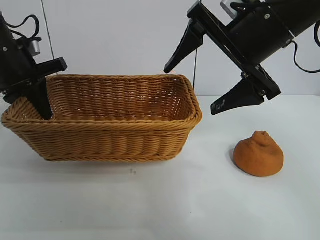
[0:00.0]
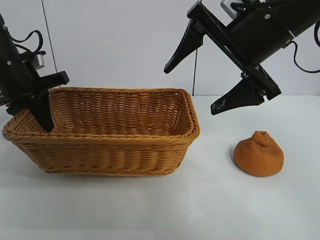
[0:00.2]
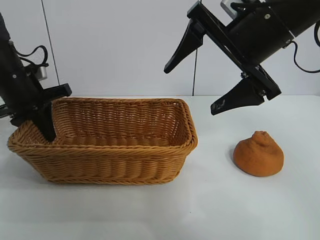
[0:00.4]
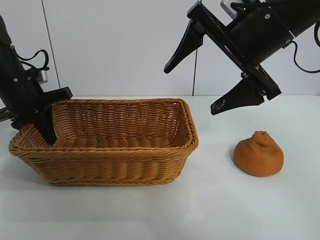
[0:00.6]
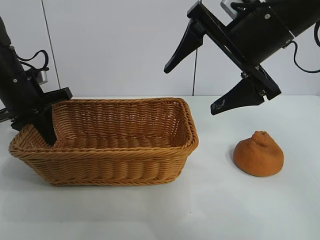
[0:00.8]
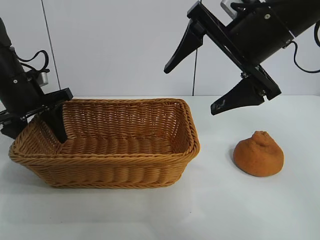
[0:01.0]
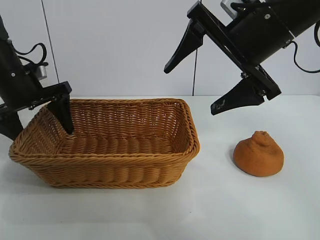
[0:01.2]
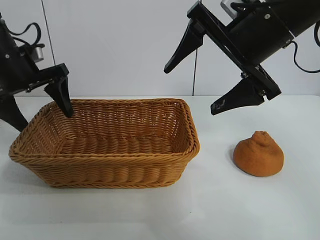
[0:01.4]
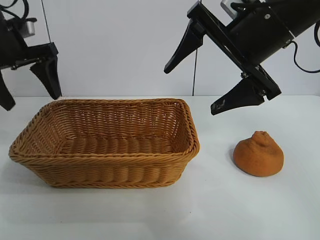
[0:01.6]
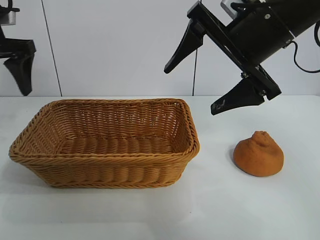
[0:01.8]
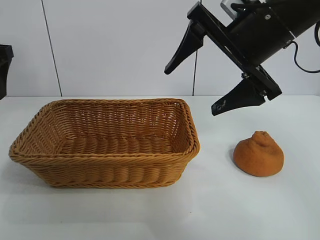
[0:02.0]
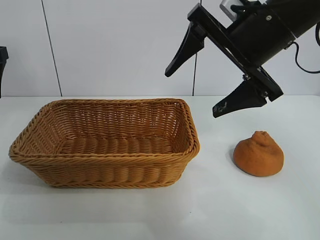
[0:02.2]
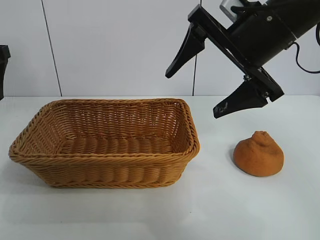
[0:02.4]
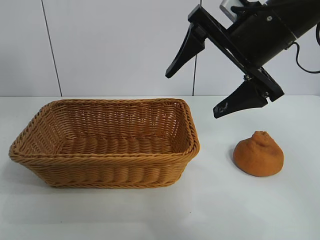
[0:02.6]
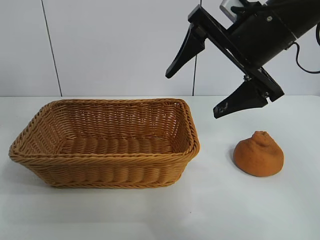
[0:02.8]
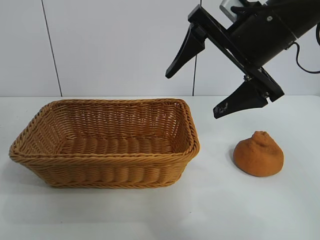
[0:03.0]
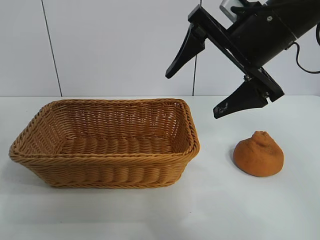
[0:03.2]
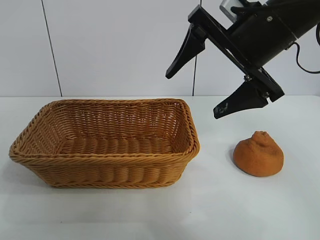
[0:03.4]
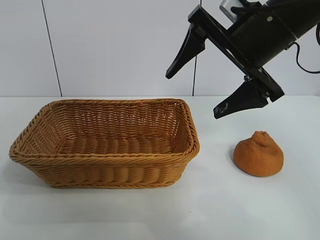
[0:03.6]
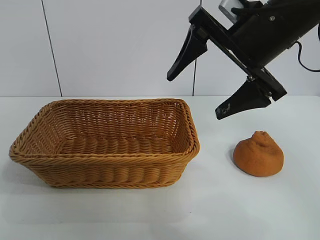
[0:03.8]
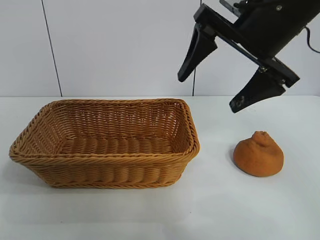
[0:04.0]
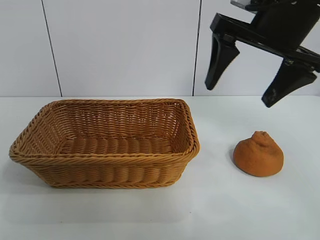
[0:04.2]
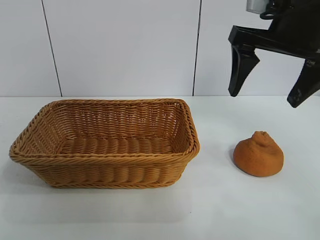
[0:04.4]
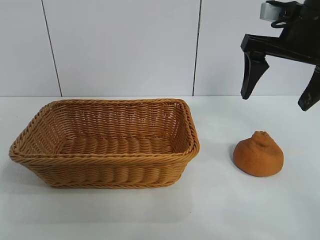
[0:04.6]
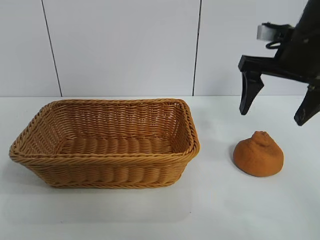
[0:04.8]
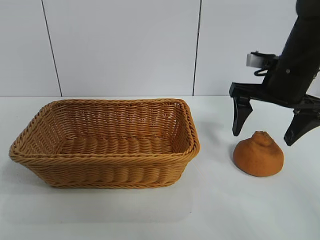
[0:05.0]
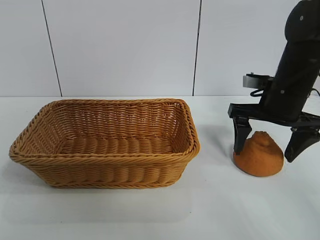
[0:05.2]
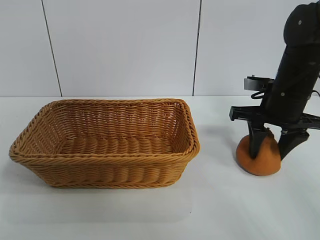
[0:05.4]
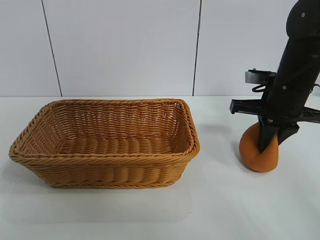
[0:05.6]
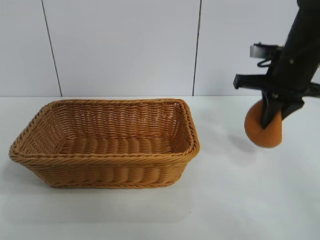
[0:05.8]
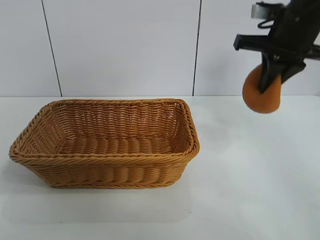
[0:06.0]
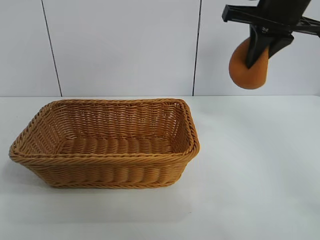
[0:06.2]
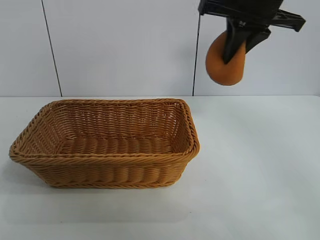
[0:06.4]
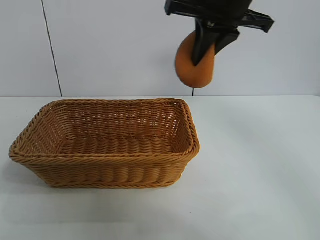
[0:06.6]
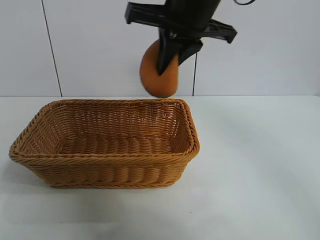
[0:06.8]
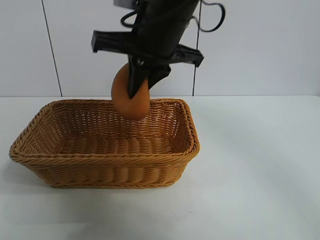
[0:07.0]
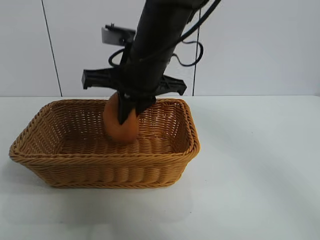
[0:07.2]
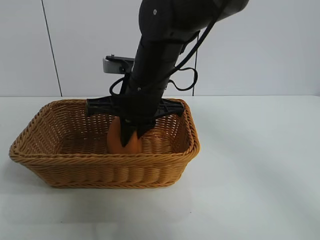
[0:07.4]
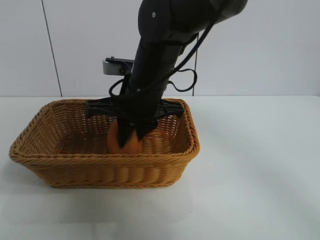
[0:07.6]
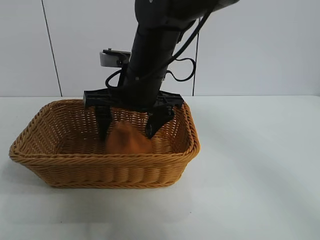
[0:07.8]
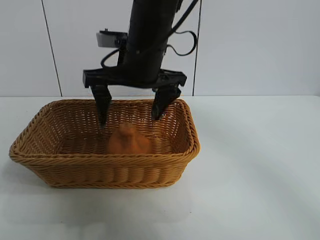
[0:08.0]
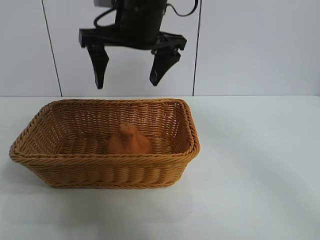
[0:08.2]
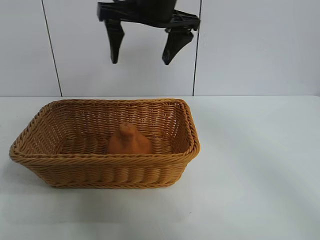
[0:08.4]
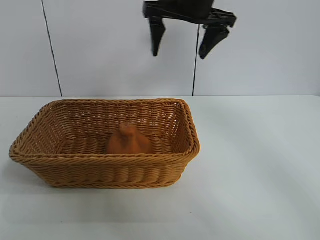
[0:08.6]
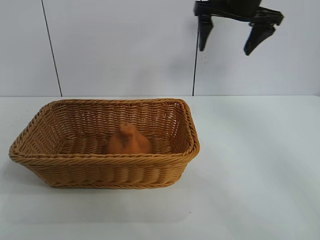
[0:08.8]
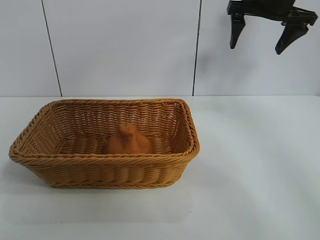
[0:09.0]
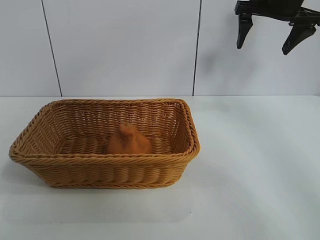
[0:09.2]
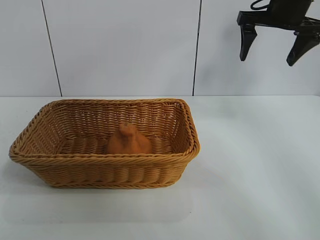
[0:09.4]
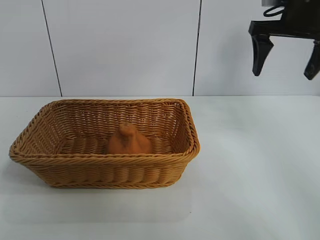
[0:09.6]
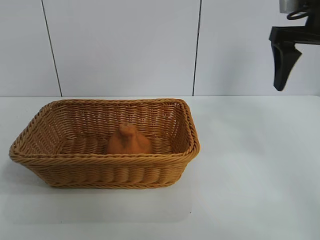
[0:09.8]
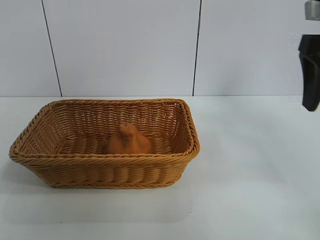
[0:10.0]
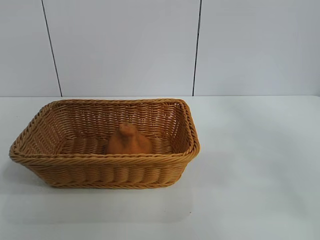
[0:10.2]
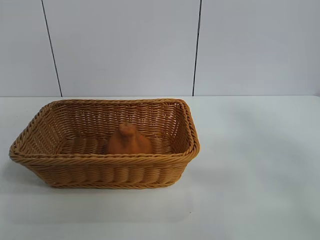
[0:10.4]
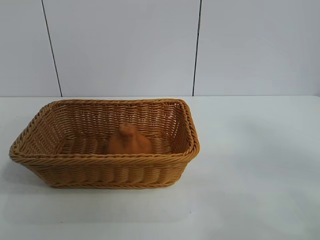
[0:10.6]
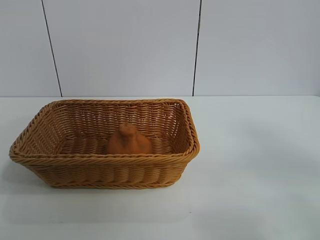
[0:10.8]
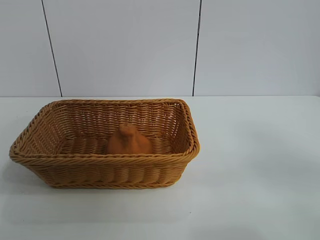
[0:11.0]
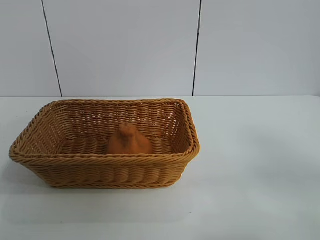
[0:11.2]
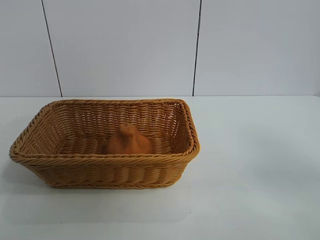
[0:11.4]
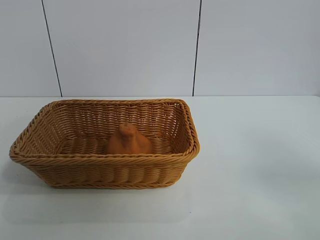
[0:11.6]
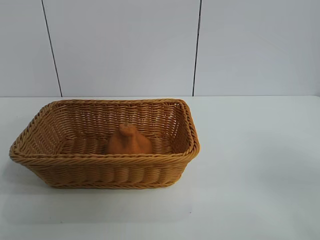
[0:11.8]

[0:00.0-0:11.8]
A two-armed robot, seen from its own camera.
Task of the whole recording: pick up the orange and put it into the basket.
Step, 0:01.4 to 0:05.6: Grasp the orange with right gripper.
Step, 0:05.8 to 0:07.8: Place the orange in the basket with right gripper.

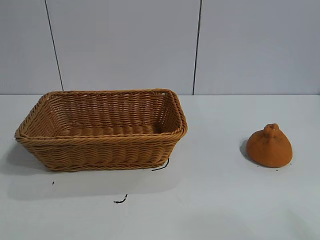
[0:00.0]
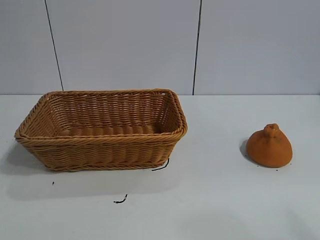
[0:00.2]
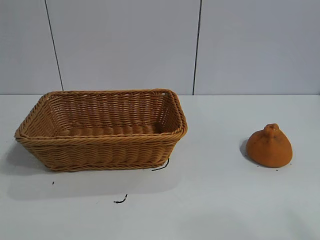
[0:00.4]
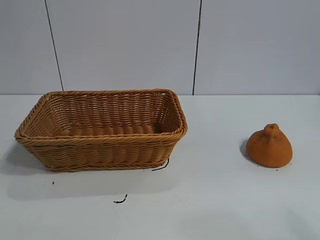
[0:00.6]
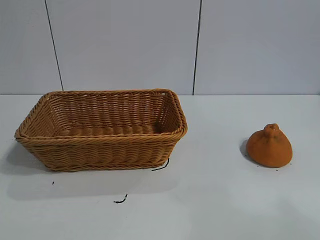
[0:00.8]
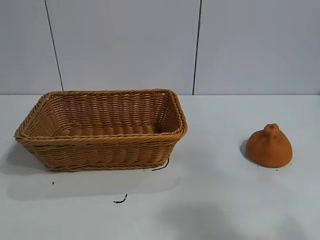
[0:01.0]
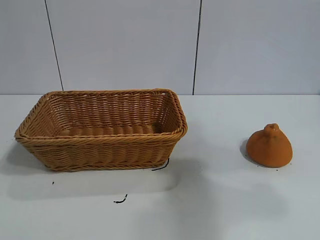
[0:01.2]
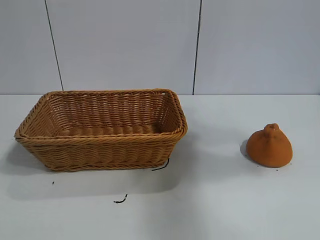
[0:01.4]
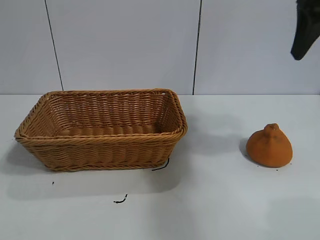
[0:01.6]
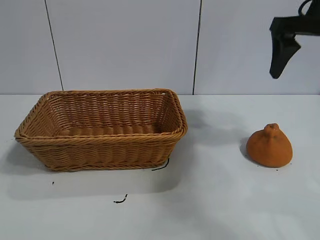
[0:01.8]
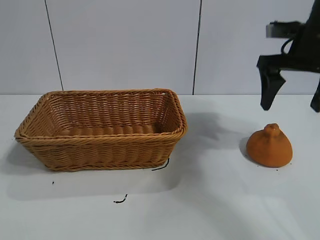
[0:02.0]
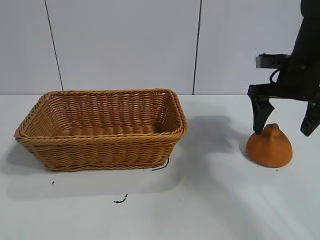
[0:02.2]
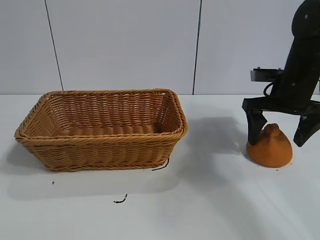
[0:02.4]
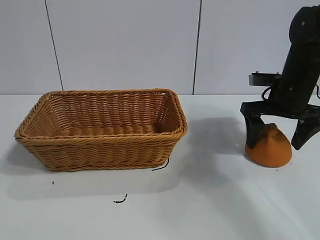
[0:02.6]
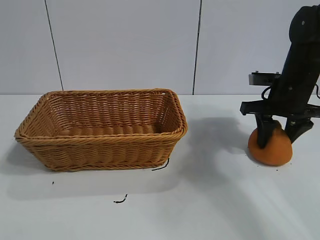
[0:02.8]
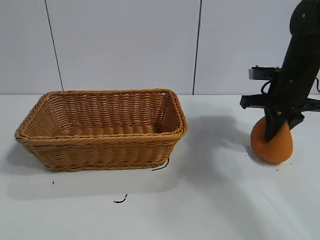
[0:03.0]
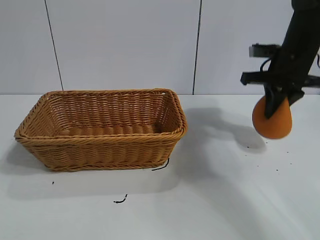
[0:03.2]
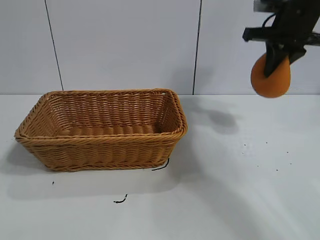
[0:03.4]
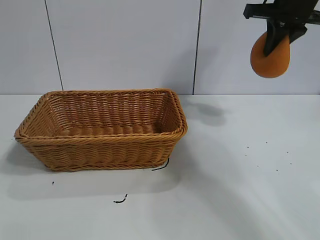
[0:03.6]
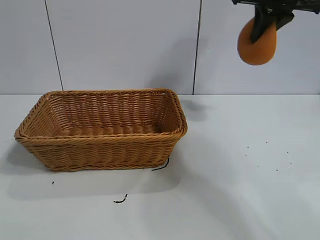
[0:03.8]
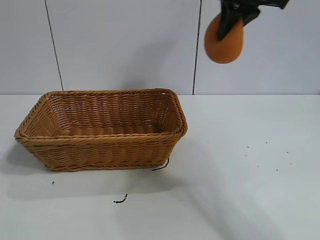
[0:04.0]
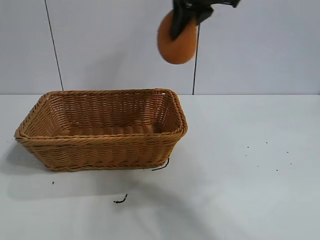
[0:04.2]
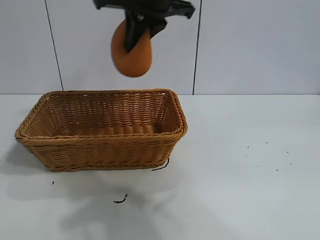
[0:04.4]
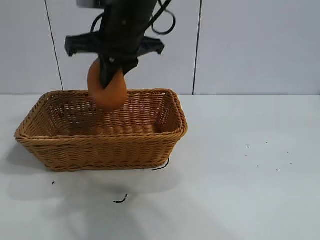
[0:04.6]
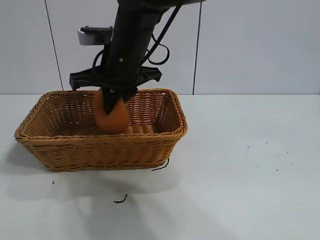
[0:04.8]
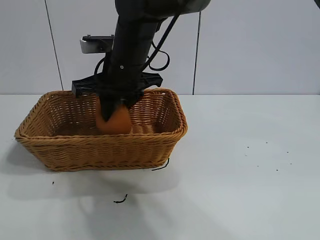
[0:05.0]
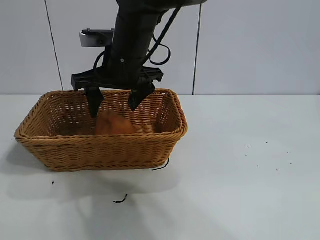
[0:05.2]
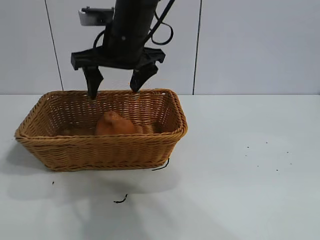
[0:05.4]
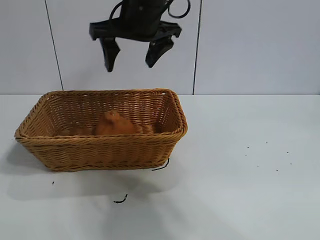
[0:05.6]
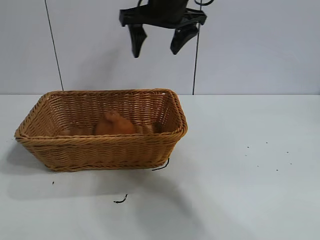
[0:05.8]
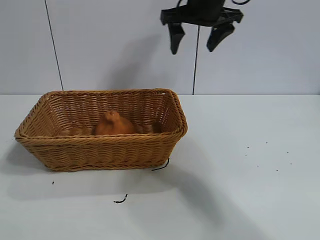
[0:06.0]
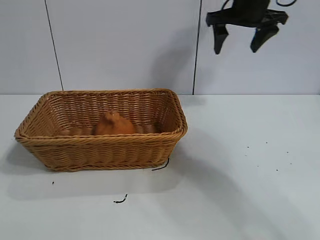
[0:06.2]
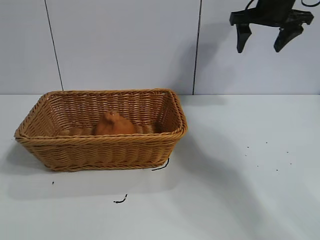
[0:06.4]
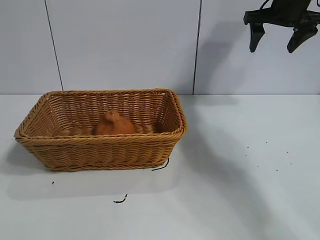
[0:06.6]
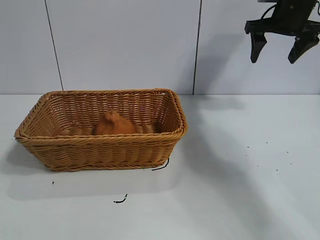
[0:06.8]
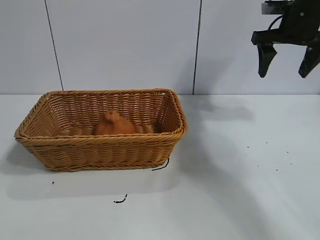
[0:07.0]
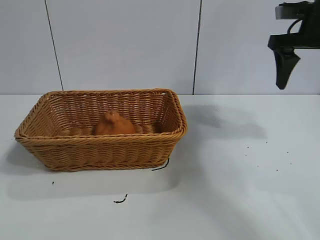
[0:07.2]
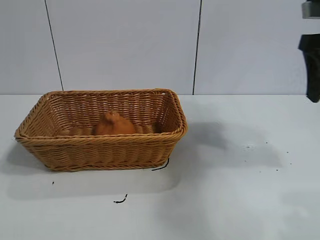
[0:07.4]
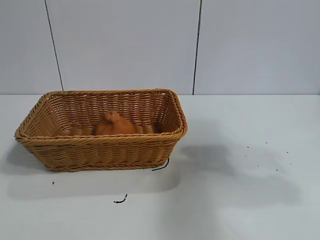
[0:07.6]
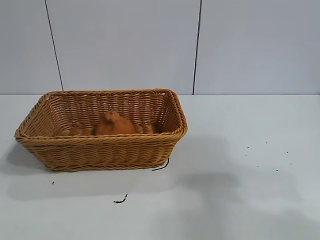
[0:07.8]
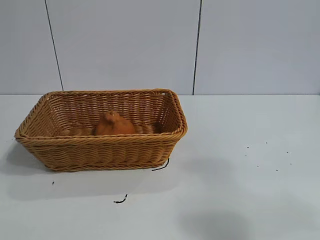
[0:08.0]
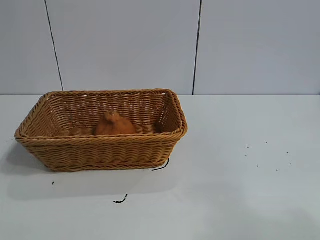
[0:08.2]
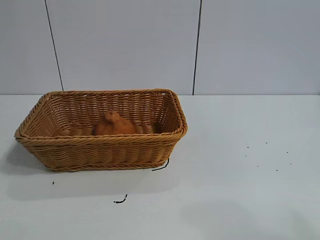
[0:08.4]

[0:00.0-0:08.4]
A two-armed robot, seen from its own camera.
Task of the whole recording: pick up the orange and put it into the basket.
Step, 0:00.6 to 0:03.0: Grasp the orange with right gripper.
Step, 0:03.2 to 0:05.2: Place the orange in the basket with right gripper.

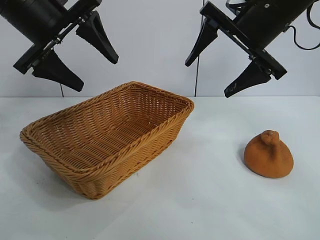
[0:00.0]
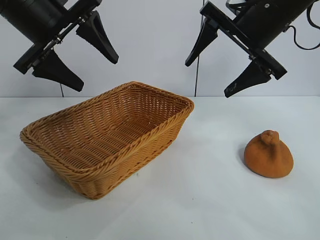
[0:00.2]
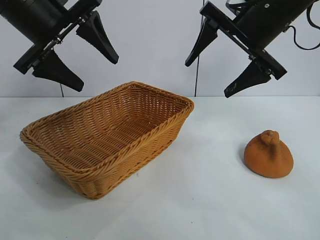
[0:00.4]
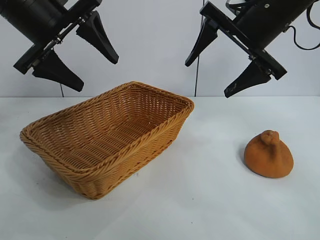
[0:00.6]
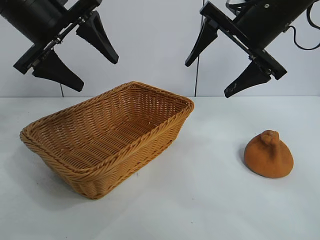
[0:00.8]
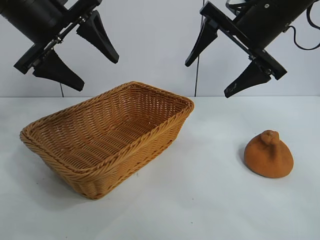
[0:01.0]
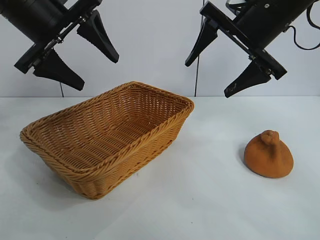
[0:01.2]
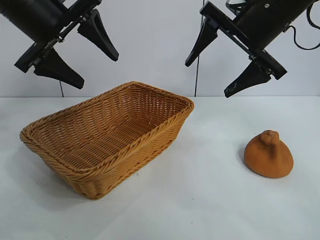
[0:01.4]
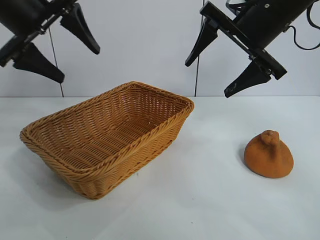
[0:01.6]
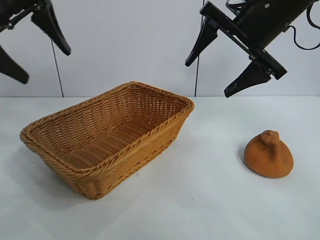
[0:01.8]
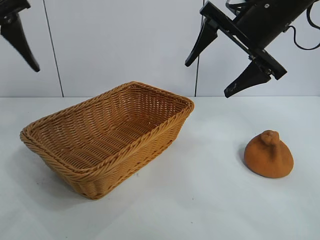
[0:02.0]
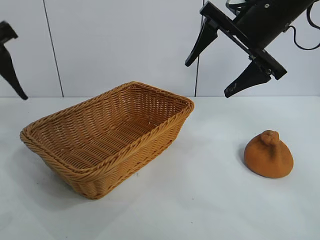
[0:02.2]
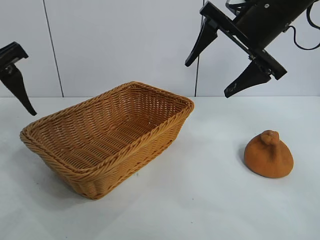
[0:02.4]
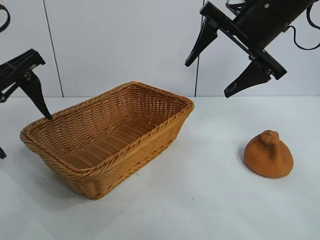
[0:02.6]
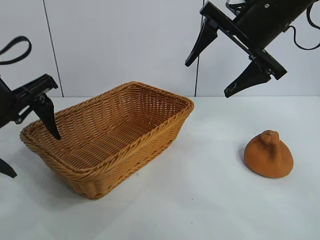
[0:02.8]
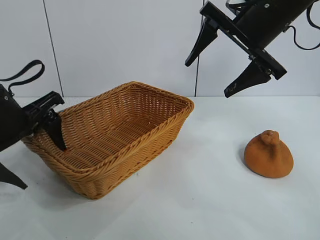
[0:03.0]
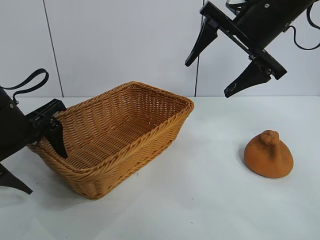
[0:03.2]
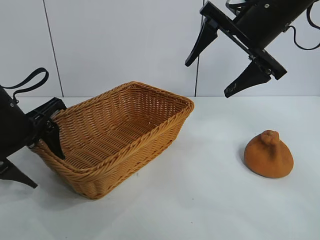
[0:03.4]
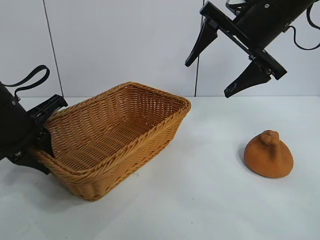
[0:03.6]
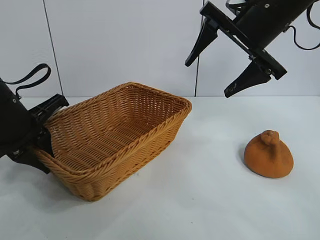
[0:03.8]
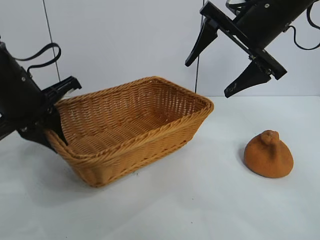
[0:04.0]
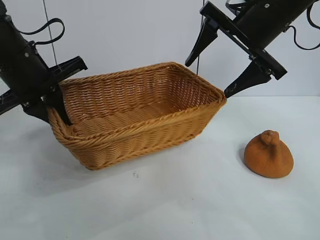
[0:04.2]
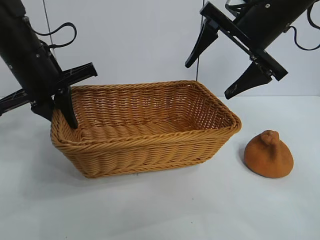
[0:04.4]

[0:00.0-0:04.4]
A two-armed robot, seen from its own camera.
Task of the whole recording: pick up the orange and put it into the basket.
Step, 0:00.8 to 0:03.6: Grasp the basket with left gripper.
